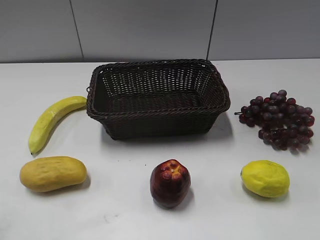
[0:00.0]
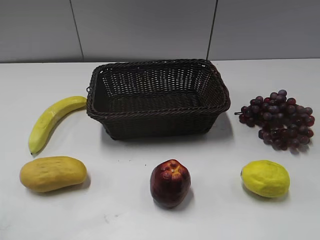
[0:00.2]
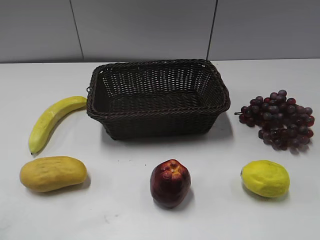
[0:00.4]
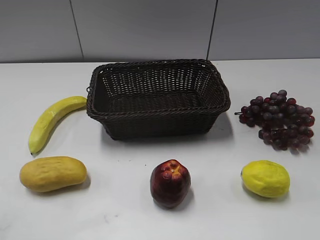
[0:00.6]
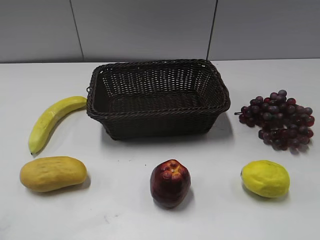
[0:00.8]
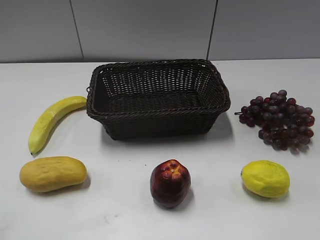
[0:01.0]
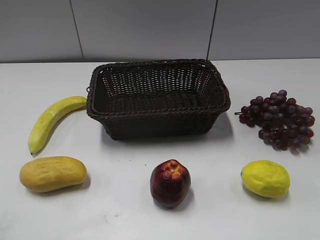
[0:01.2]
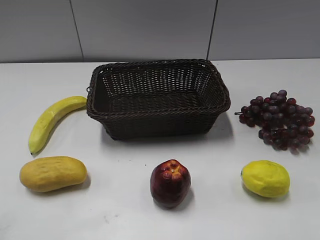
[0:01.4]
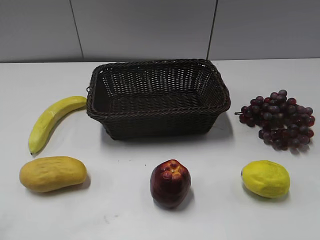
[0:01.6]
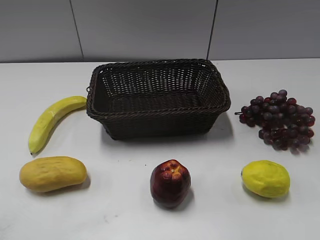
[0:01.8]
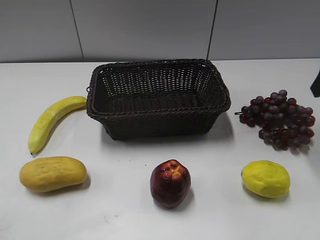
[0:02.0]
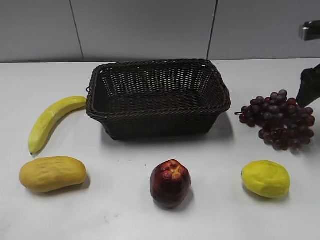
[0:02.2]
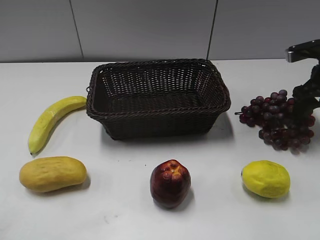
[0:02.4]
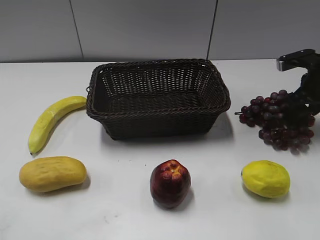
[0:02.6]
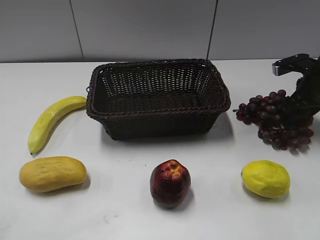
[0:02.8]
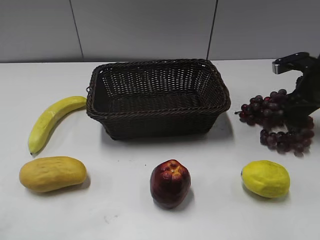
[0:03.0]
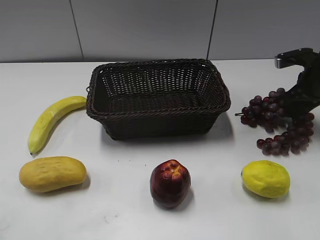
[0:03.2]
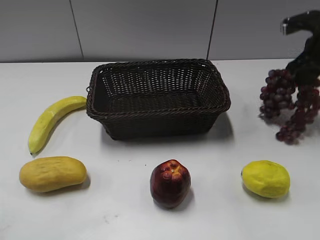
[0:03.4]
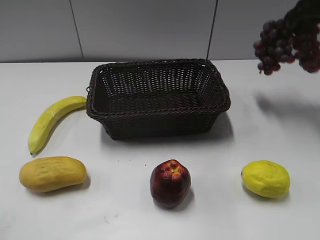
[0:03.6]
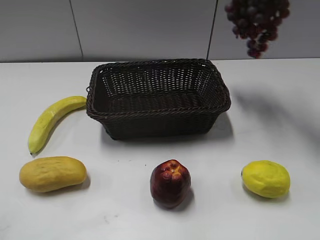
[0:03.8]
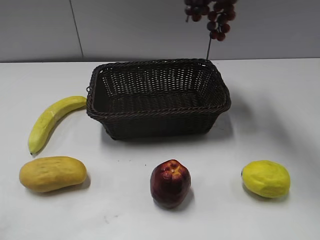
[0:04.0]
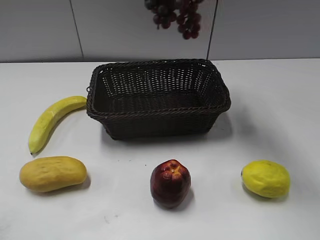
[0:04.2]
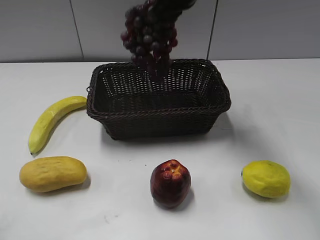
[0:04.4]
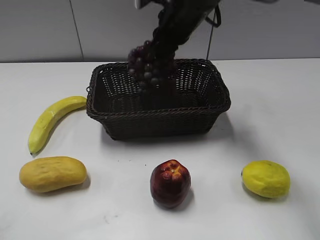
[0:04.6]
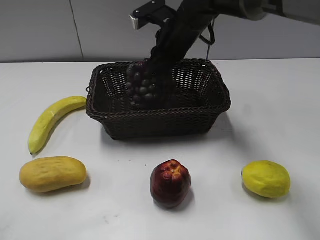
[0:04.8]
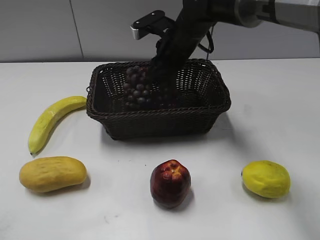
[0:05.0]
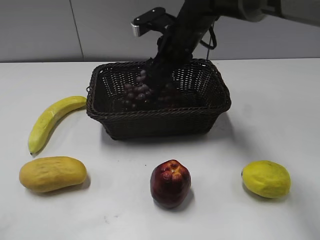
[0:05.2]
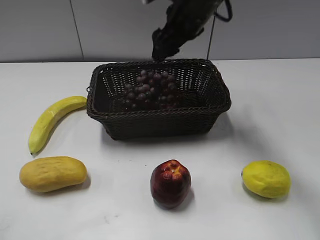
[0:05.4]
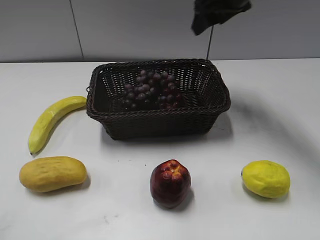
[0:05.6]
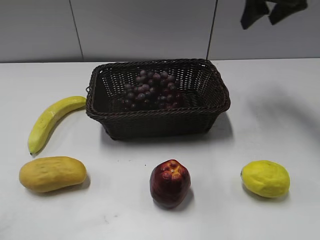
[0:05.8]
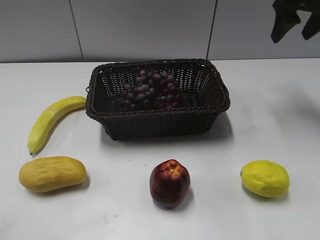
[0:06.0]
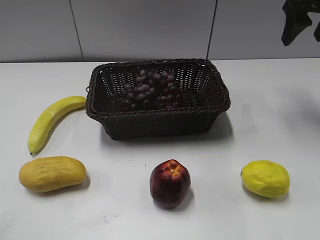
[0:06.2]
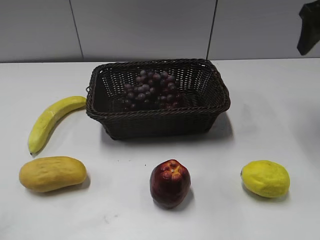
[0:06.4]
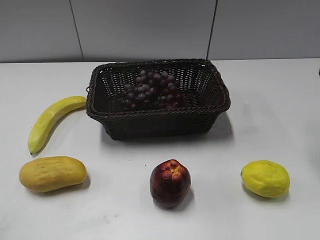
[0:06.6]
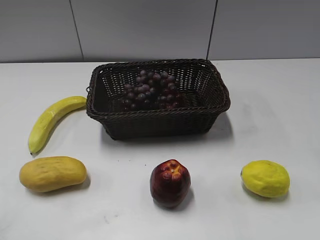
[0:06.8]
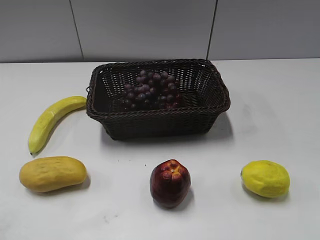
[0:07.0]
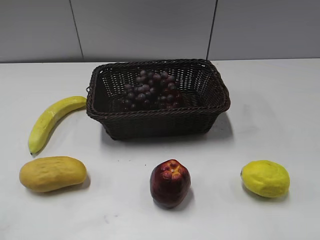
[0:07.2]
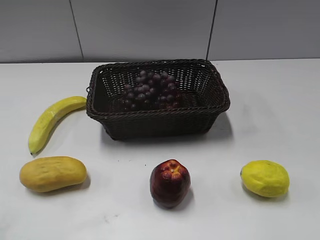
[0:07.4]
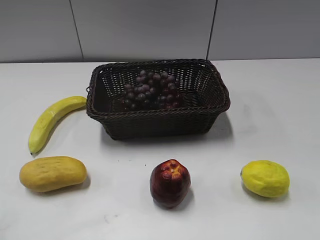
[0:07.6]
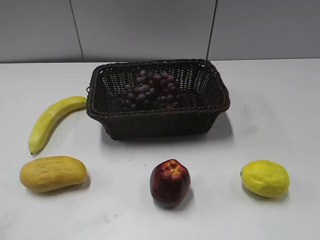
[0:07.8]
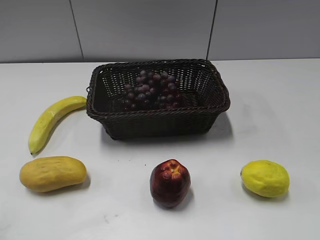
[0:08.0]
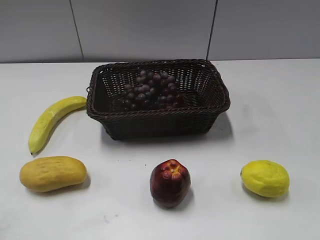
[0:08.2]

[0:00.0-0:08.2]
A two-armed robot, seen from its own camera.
Step, 0:02.0 to 0:03.0: Grasp the grape with right gripper.
Step, 0:03.2 to 0:05.2: Place the grape in the basket with right gripper.
0:01.6 to 0:03.2: The right gripper shifts about 30 cm forward and downward, and closes.
0:03.2 to 0:05.0: The right gripper moves to the left, approximately 30 cm.
0:05.0 to 0:06.6: The right gripper goes approximately 30 cm to the right, upward and backward, and opens its fingers.
